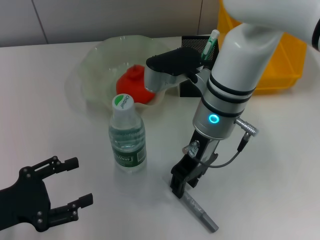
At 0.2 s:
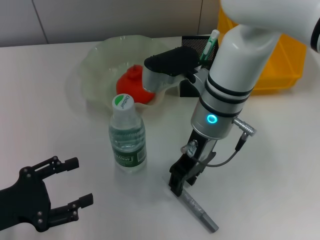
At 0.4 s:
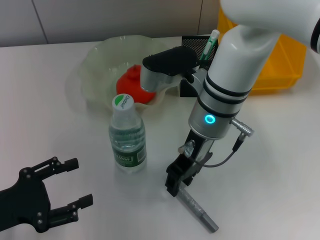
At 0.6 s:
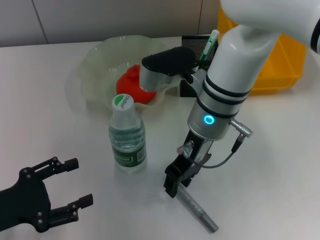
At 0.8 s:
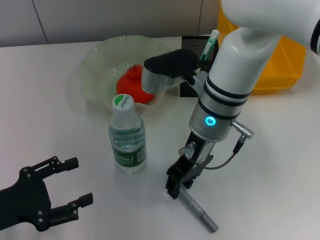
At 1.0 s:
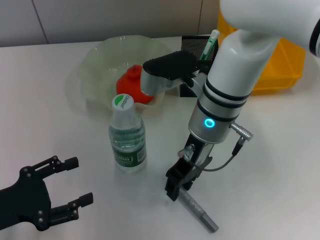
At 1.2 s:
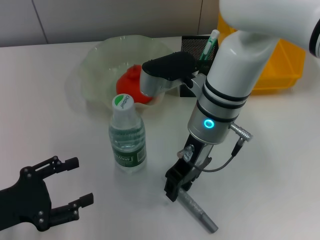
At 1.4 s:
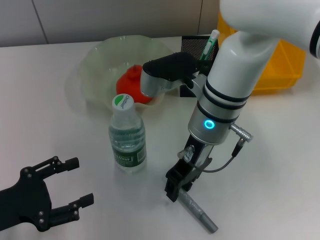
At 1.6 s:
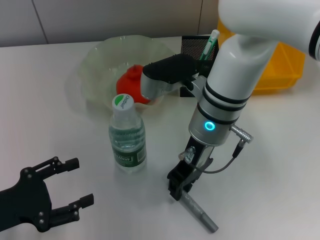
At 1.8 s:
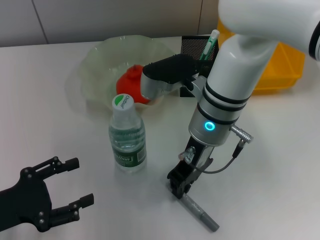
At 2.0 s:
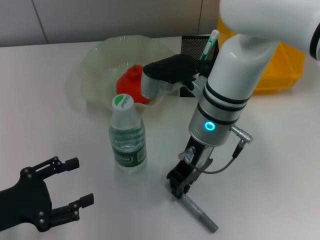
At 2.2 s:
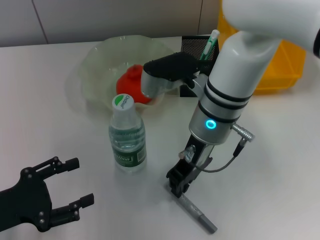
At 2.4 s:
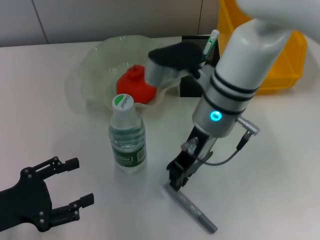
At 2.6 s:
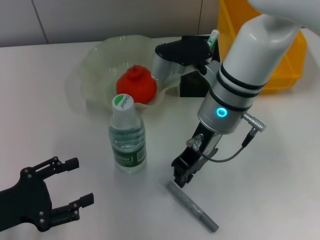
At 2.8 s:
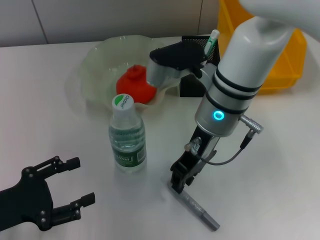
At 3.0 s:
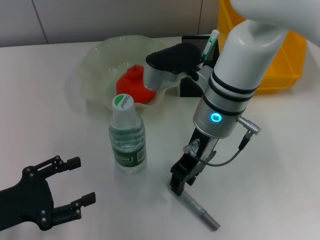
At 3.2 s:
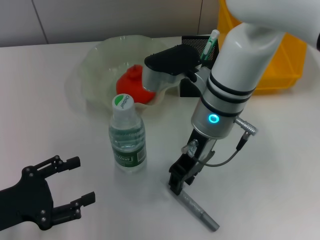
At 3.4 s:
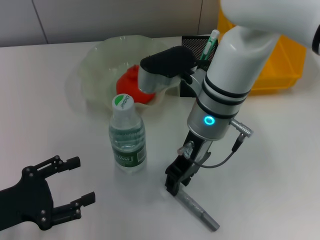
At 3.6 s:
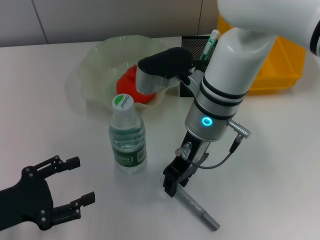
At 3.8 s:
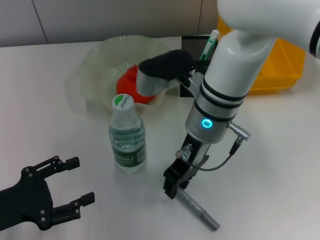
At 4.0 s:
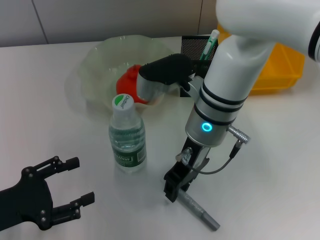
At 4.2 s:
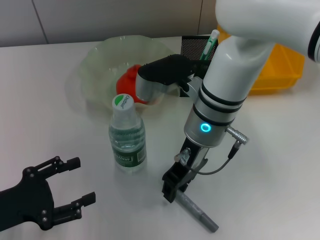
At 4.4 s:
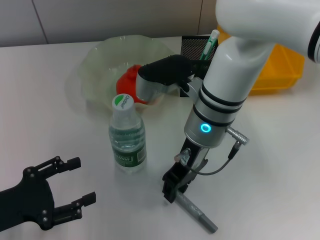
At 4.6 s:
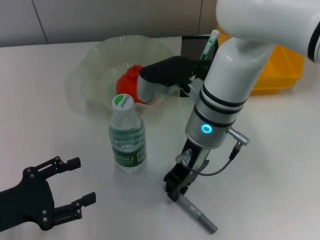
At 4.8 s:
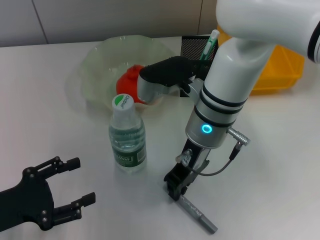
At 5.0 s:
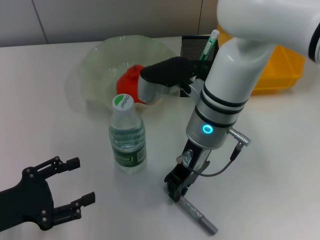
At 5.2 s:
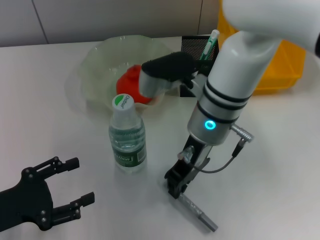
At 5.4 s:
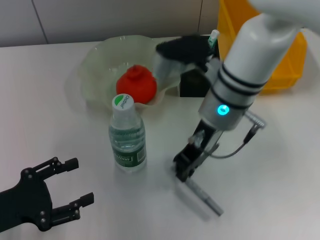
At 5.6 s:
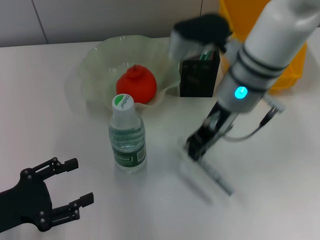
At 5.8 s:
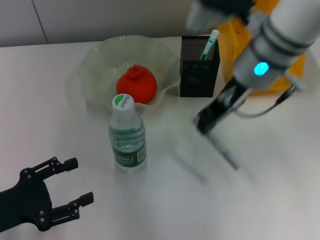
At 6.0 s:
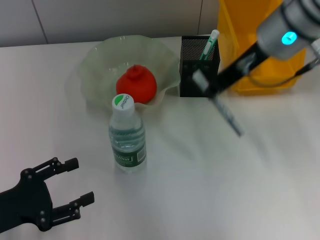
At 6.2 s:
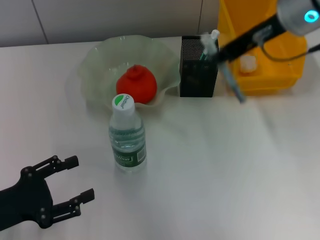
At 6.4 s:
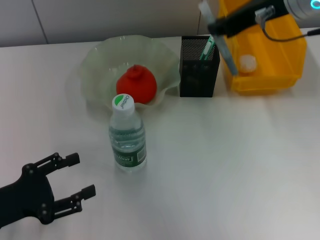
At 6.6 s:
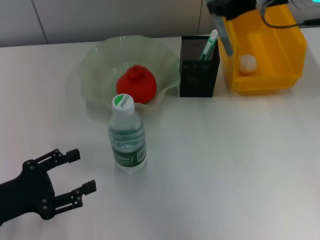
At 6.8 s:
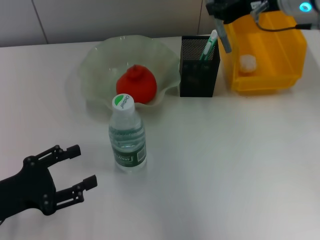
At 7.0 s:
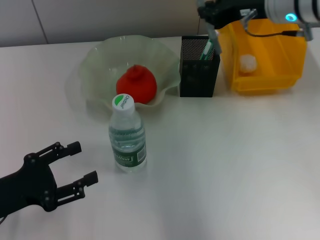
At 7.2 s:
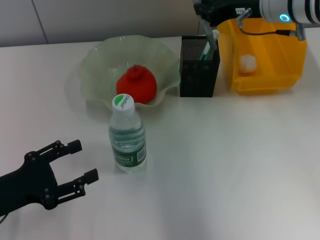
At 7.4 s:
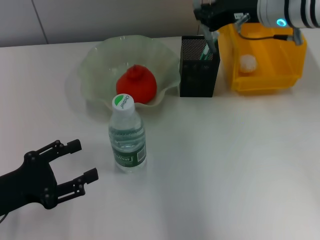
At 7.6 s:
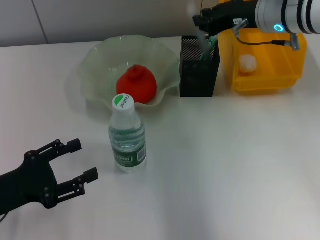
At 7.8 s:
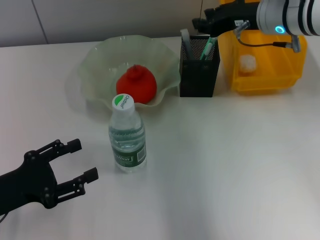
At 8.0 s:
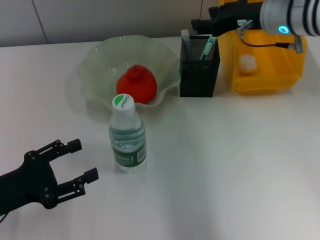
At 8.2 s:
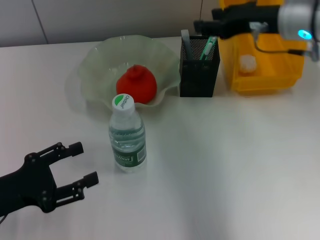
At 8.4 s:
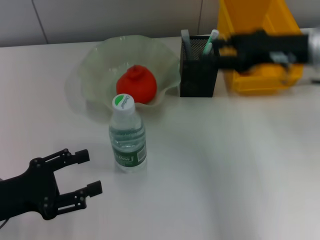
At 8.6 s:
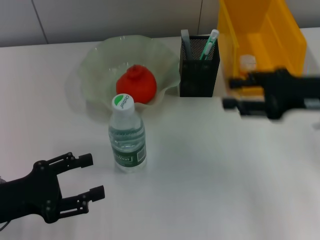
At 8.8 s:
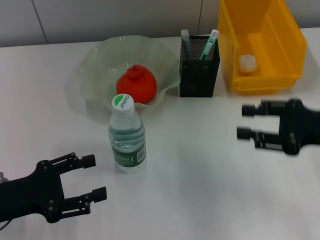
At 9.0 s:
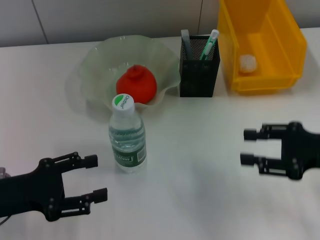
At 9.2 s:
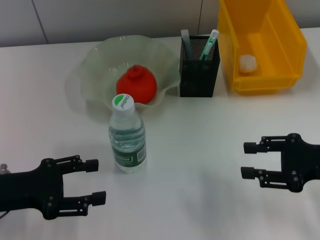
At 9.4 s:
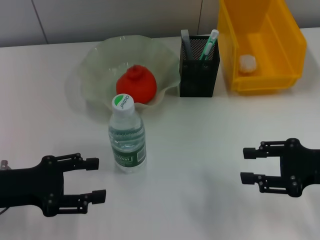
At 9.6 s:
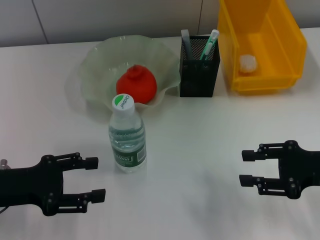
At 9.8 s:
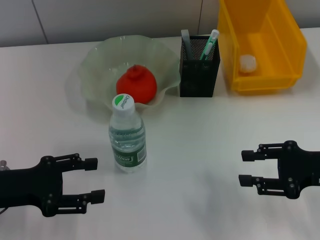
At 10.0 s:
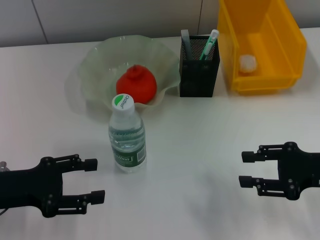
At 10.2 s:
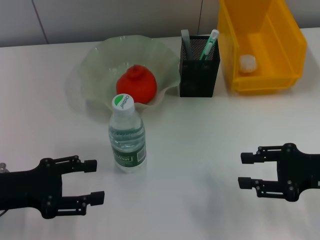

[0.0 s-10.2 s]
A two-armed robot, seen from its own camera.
Step, 0.0 to 4.6 s: Grab the gray glue with the right hand.
Step, 5.0 to 8.6 s: Place the gray glue into the pen holder with the right hand.
0.0 to 1.4 s: The two grippers keep their place.
1.4 to 4.4 s: There are only small adjustments of the grippers.
4.4 to 5.8 s: The right gripper heads upward and to the right, covering approximately 10 cm.
5.8 to 7.2 s: The right gripper moves to the right, approximately 5 cm.
7.2 to 8.8 s: The right gripper goes roughly 20 cm backward, to the right and downward, and opens up.
8.8 to 10.2 s: The grippers make only small movements.
